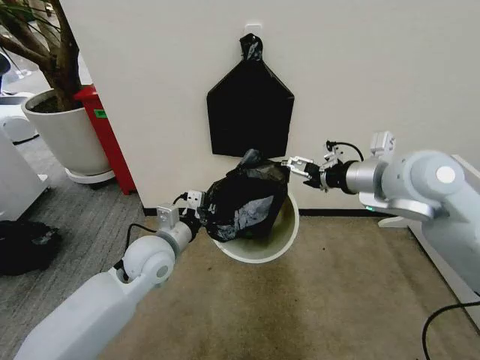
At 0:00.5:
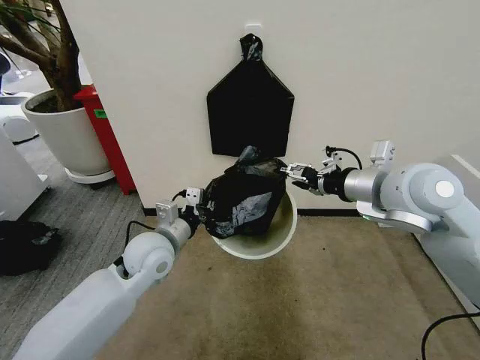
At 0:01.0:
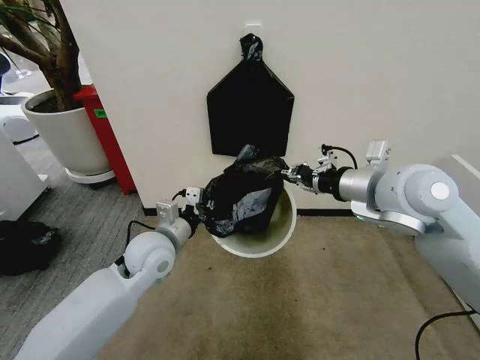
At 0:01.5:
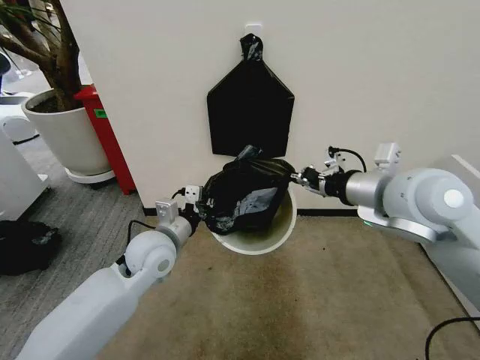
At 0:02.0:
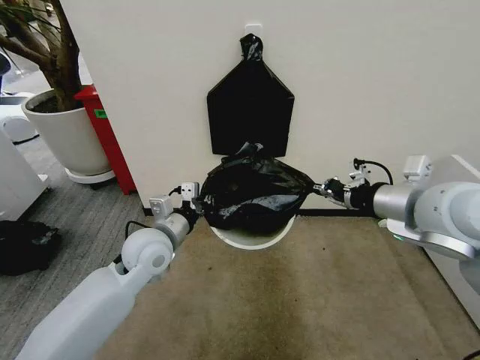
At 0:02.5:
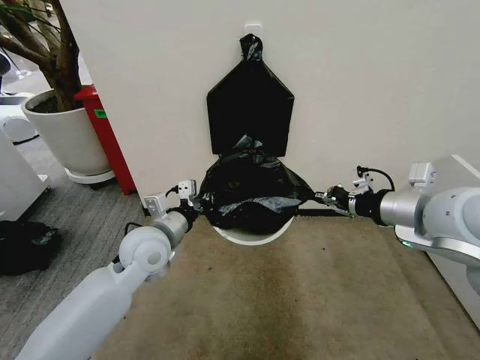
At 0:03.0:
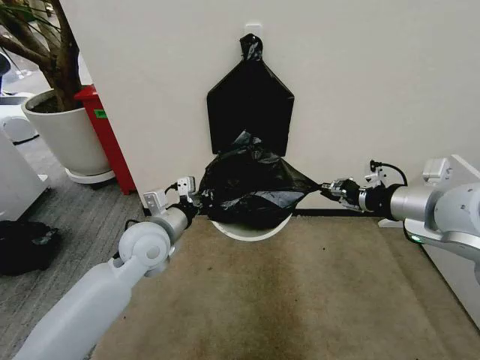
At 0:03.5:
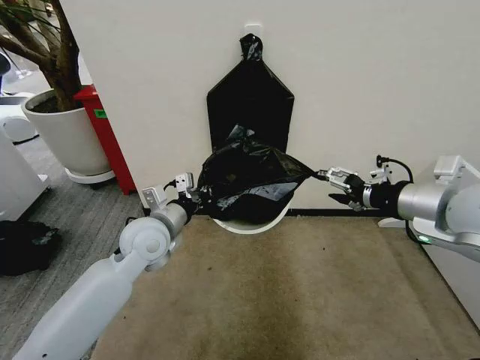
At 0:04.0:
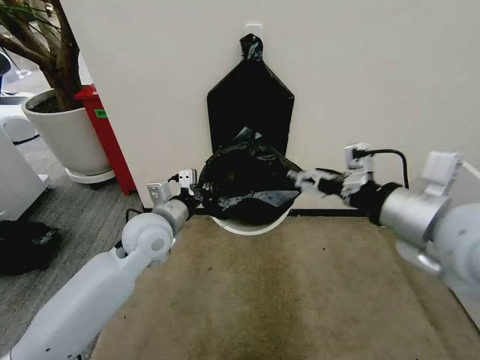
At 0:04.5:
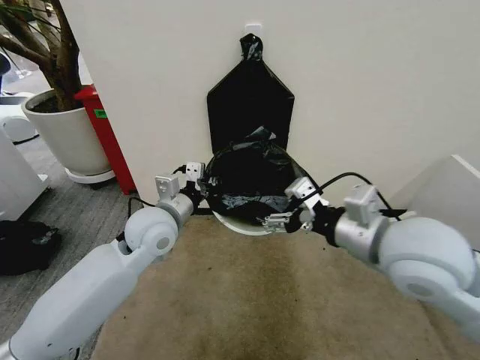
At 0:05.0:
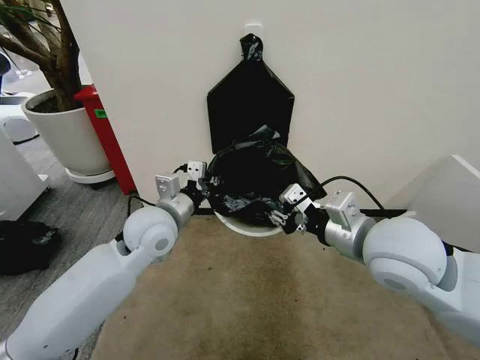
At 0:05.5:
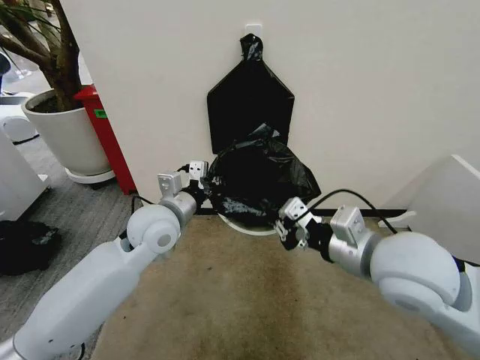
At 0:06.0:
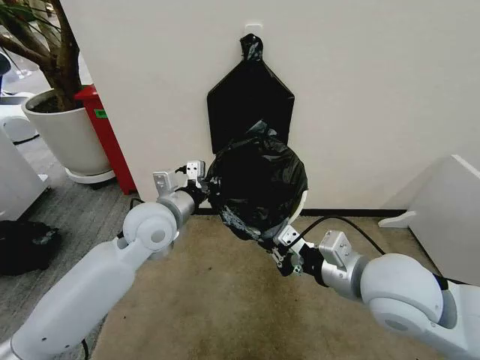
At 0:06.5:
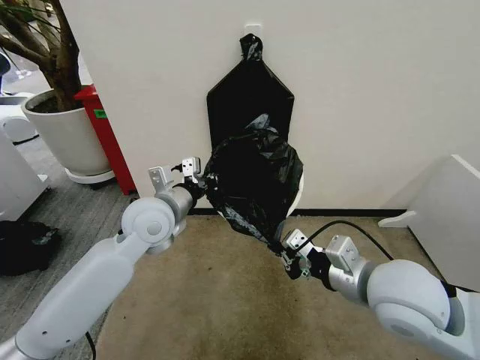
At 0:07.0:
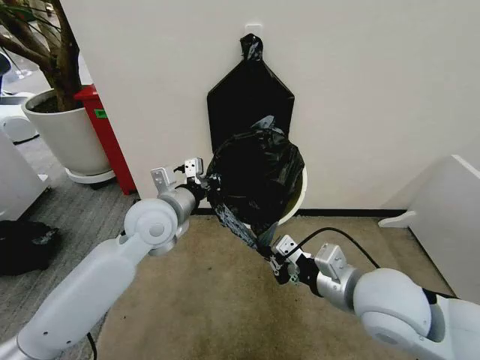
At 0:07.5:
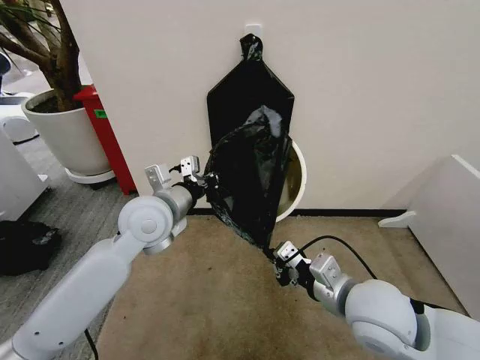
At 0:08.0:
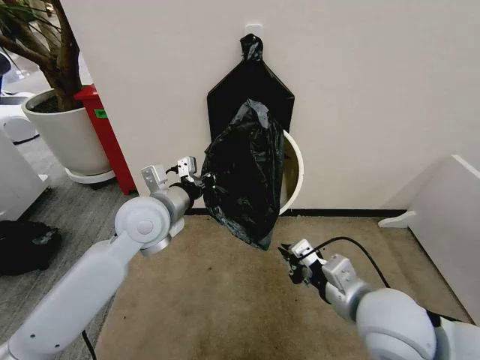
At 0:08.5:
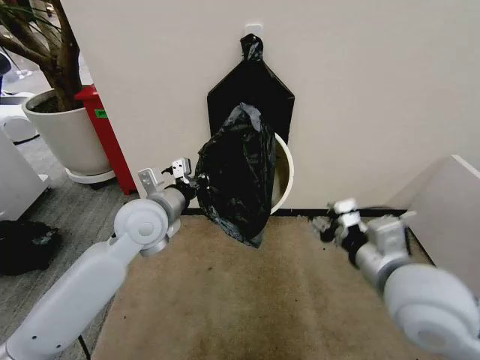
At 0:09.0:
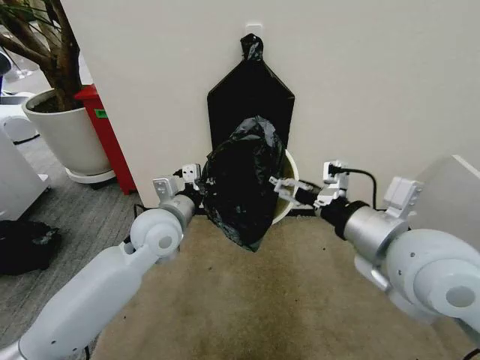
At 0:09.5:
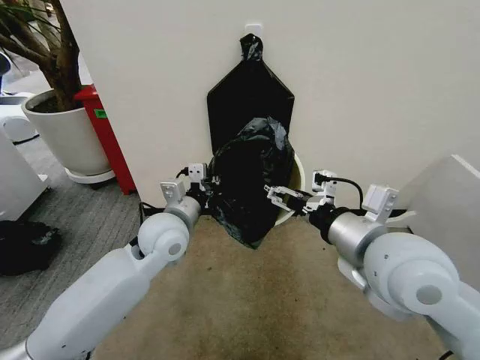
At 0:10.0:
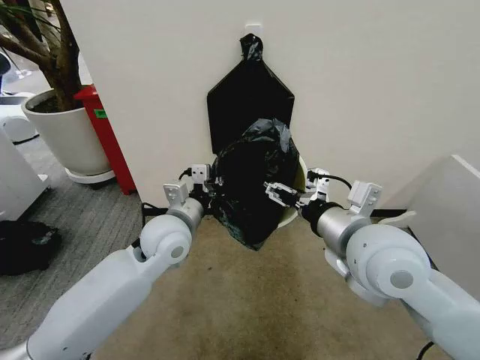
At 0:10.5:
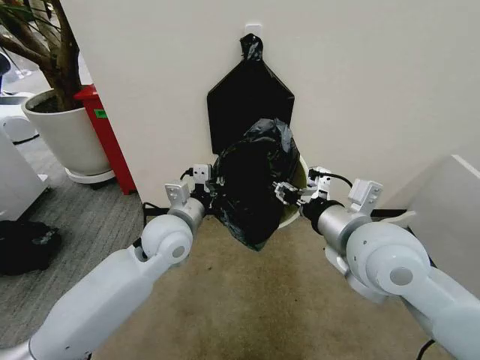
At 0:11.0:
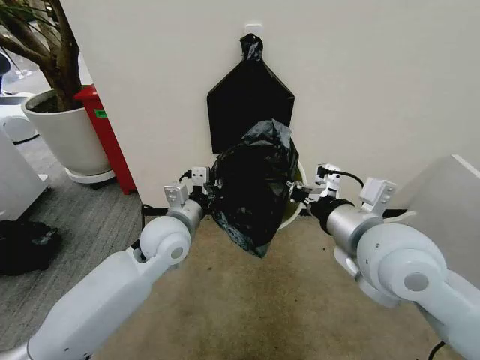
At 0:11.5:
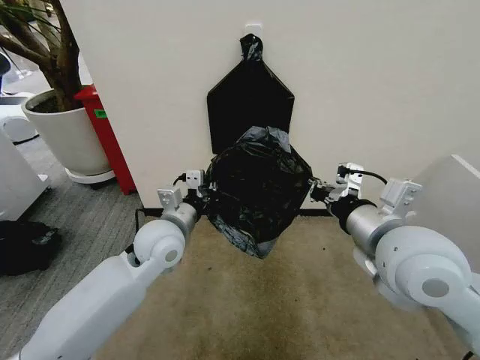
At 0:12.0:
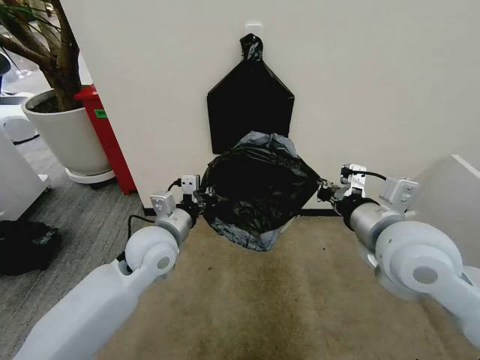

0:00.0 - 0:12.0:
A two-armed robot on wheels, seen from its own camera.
Task of the whole recording: Place the garbage bag over the trash bin.
0:00.0 - 0:02.0: The right gripper shifts roughly 5 cm backward, and closes its fingers.
0:02.0 - 0:04.0: The right gripper heads backward, covering some 5 cm, and opens.
0:04.0 - 0:06.0: The right gripper shifts some 10 cm downward and to the left, and closes.
0:06.0 - 0:08.0: The right gripper moves roughly 5 cm.
0:08.0 - 0:10.0: The left gripper shifts by about 5 cm. Meanwhile the right gripper goes approximately 10 cm upward and forward, and opens its fingers.
0:10.0 - 0:12.0: The right gripper closes up.

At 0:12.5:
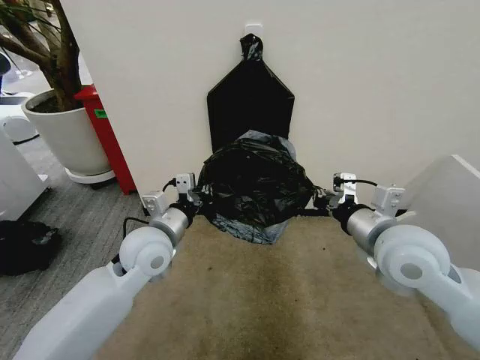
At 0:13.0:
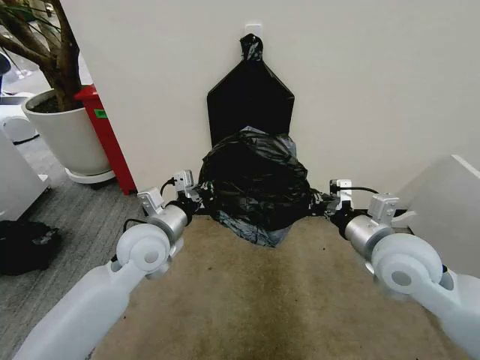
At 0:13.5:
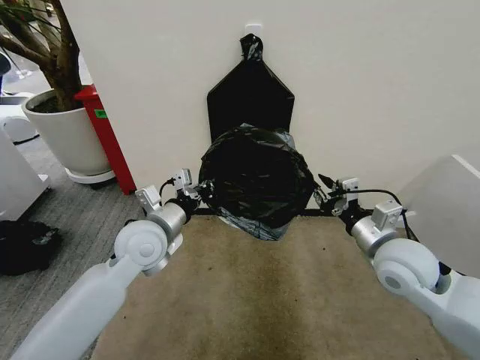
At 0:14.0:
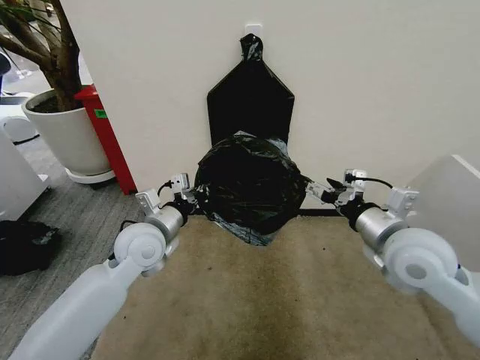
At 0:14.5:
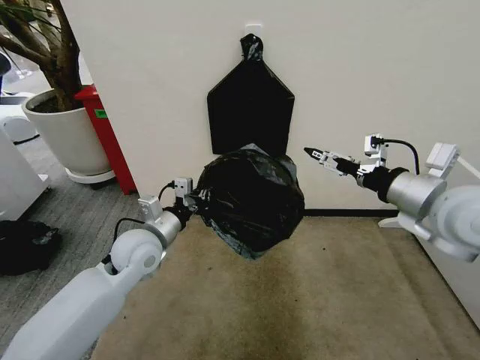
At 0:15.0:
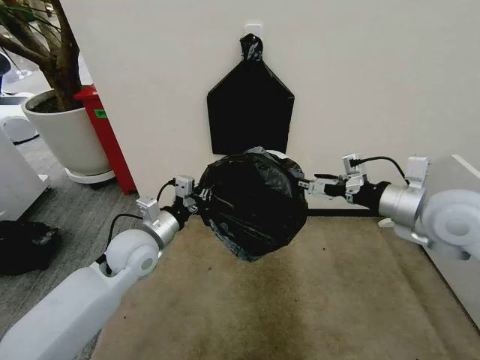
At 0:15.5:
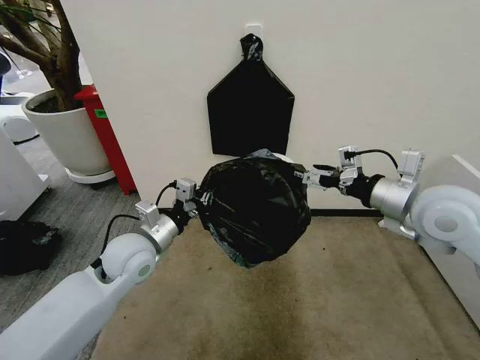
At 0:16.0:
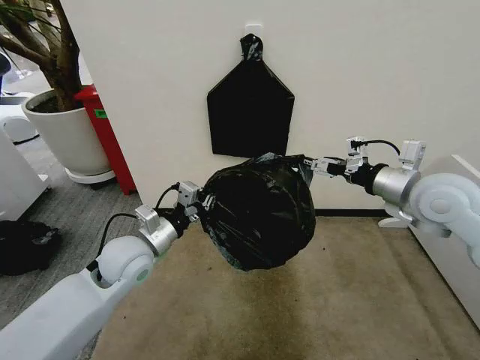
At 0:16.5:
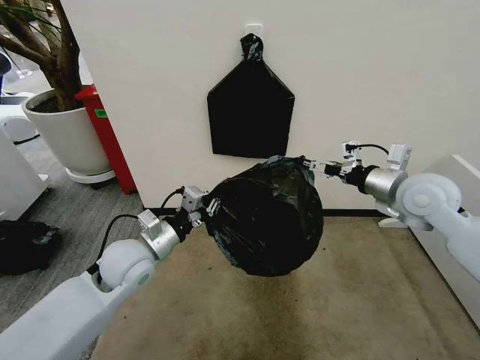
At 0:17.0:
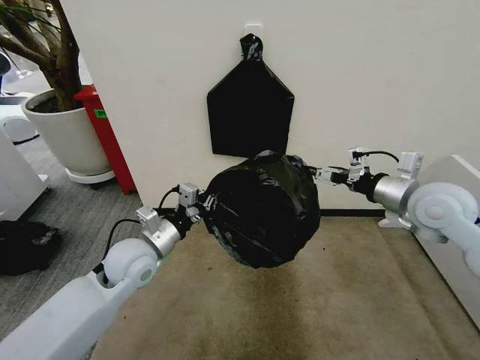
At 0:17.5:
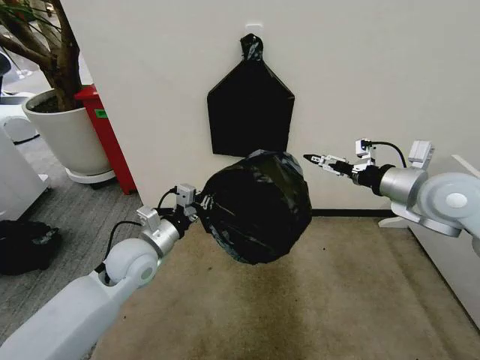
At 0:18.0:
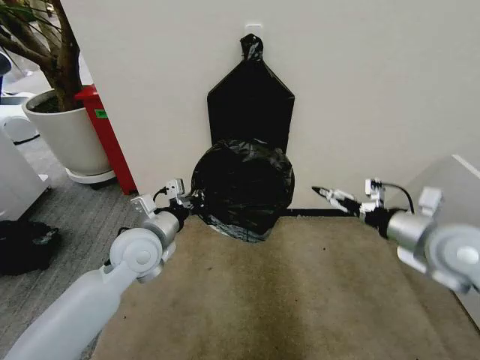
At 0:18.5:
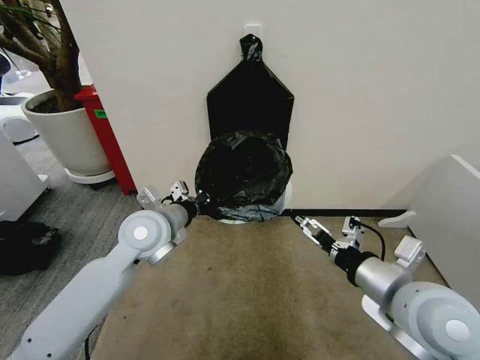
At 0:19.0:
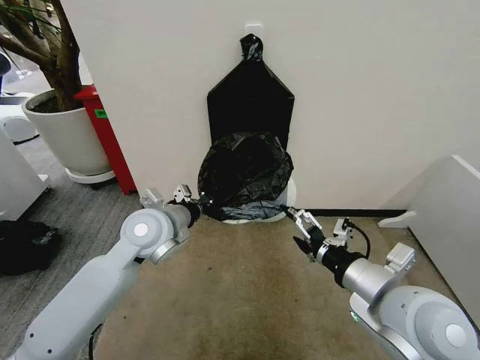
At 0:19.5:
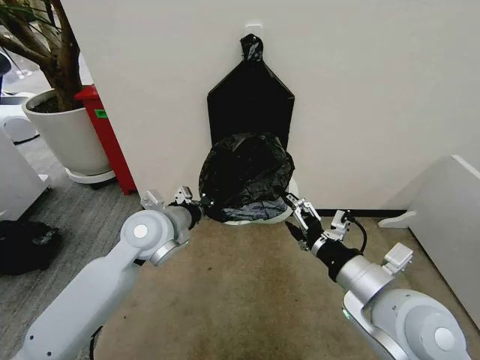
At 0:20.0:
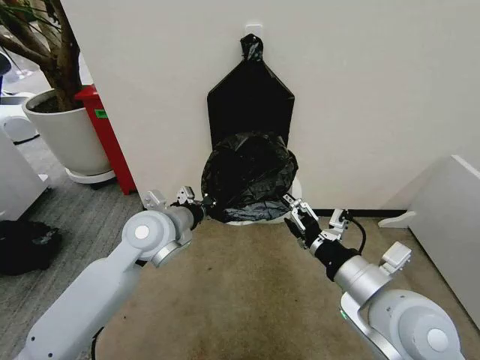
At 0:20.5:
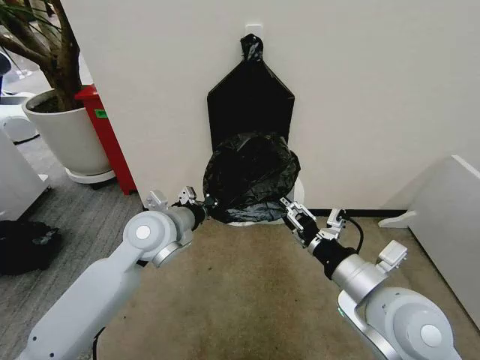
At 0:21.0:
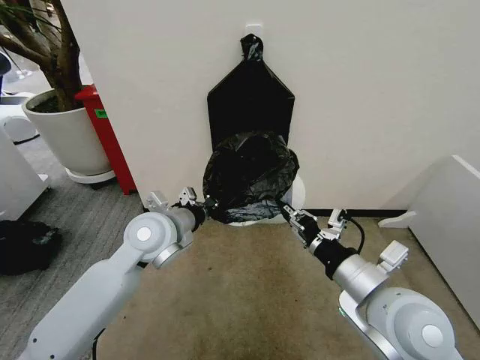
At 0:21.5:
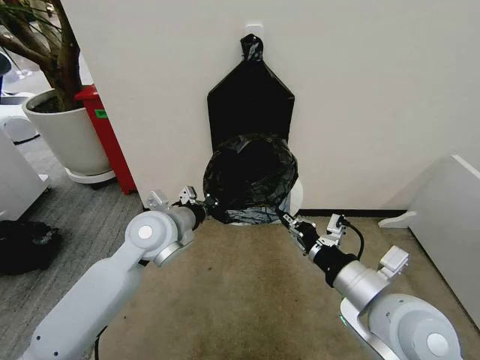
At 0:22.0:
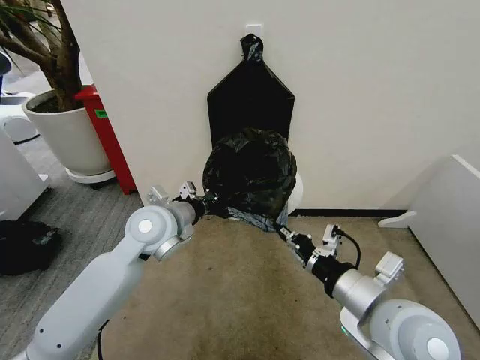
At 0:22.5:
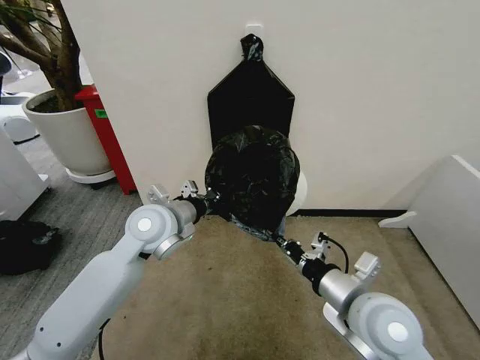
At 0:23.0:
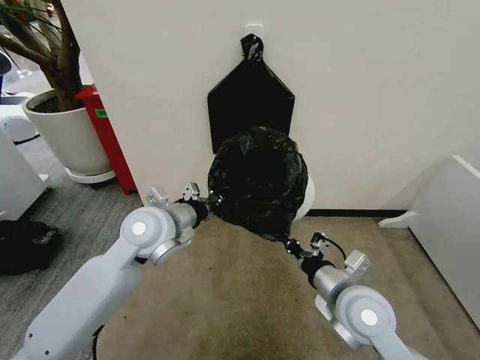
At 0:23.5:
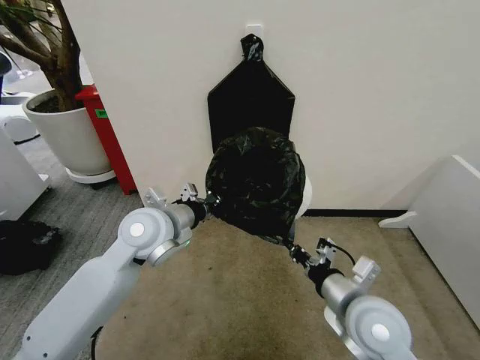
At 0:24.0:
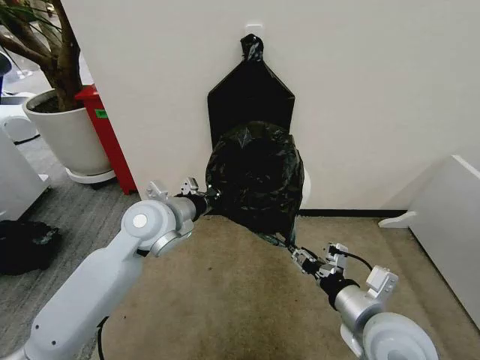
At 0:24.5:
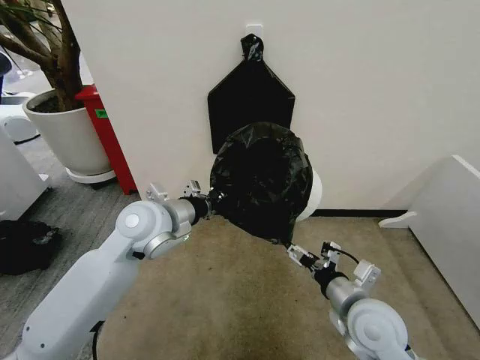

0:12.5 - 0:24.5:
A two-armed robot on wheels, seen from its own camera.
Task of the whole recording: Place the garbage bag over the trash bin.
0:12.5 - 0:14.5: The right gripper travels upward and to the right by roughly 10 cm, and opens.
0:14.5 - 0:16.5: The right gripper goes roughly 10 cm forward and downward.
0:16.5 - 0:18.5: The left gripper moves upward, about 5 cm. Meanwhile the right gripper travels backward and to the left by some 20 cm.
0:18.5 - 0:20.5: The right gripper closes its fingers.
0:20.5 - 0:22.5: The right gripper closes its fingers.
0:22.5 - 0:24.5: The right gripper goes approximately 5 cm downward, and opens up.

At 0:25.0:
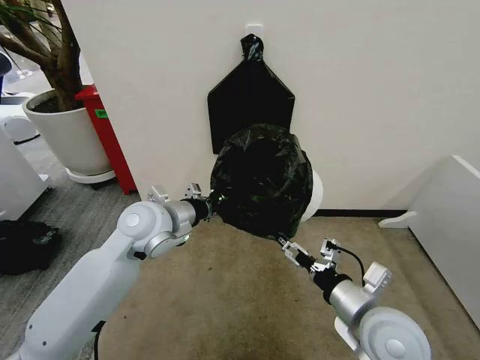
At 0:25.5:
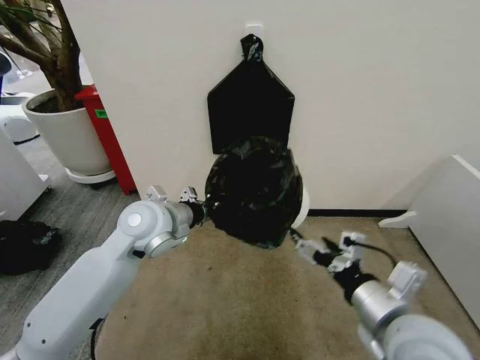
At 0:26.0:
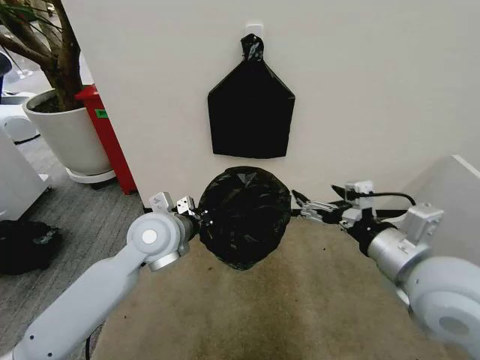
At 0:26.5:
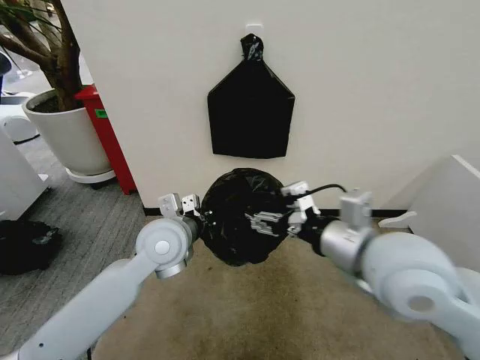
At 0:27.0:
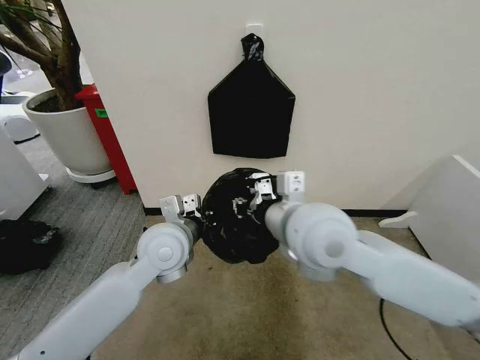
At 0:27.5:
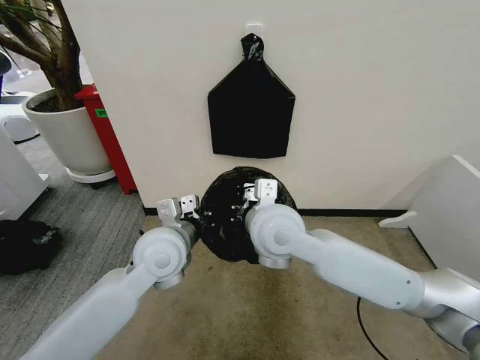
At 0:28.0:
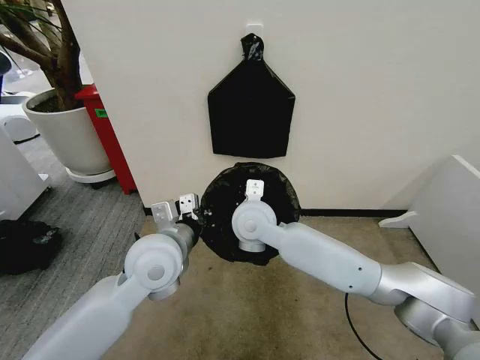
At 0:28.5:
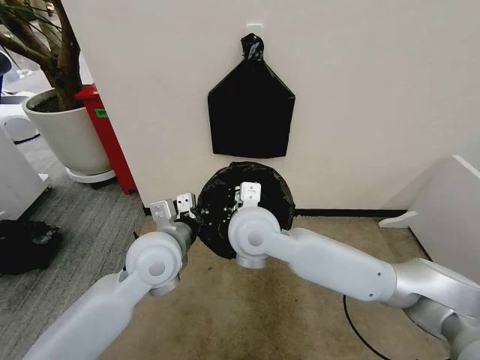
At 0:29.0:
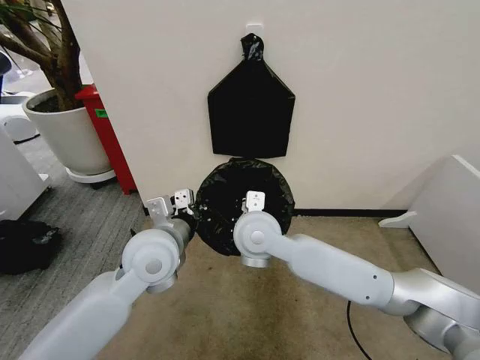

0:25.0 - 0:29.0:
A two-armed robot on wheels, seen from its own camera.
Task of the whole recording: Place the garbage bag over the trash bin.
0:25.0 - 0:27.0: The left gripper moves approximately 5 cm; the right gripper heads upward, to the left and forward, covering about 25 cm, and closes its fingers.
0:27.0 - 0:29.0: The right gripper shifts approximately 15 cm downward, to the left and forward.
